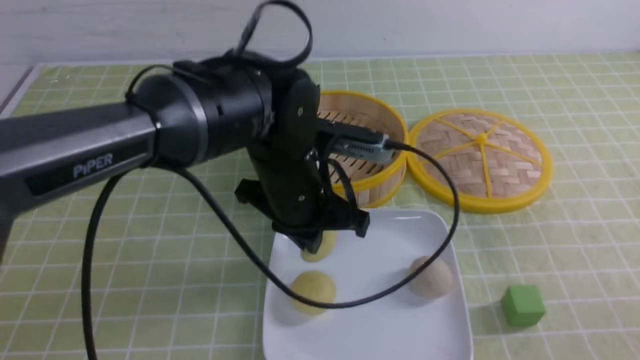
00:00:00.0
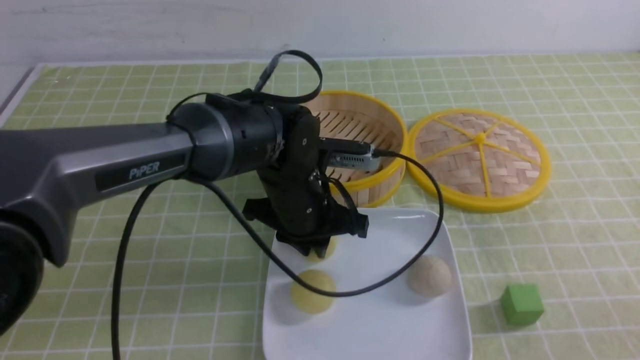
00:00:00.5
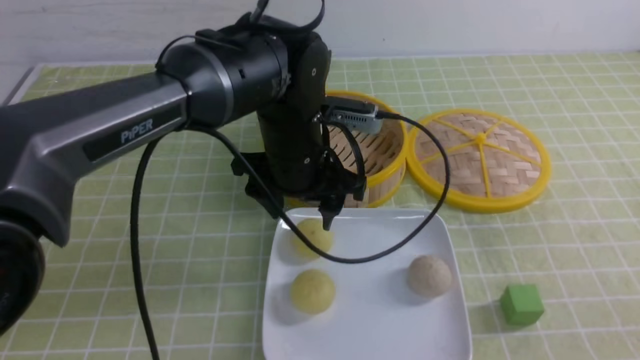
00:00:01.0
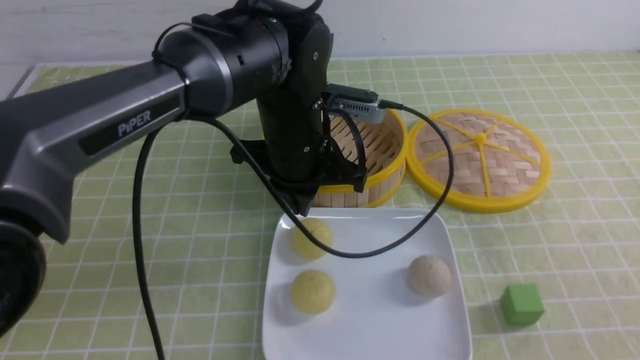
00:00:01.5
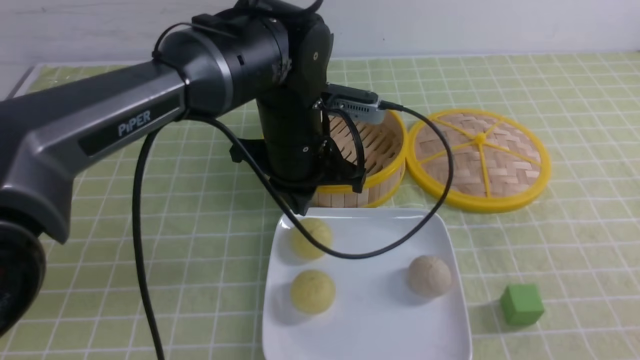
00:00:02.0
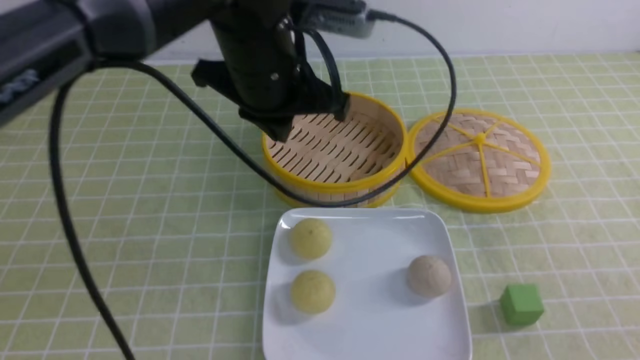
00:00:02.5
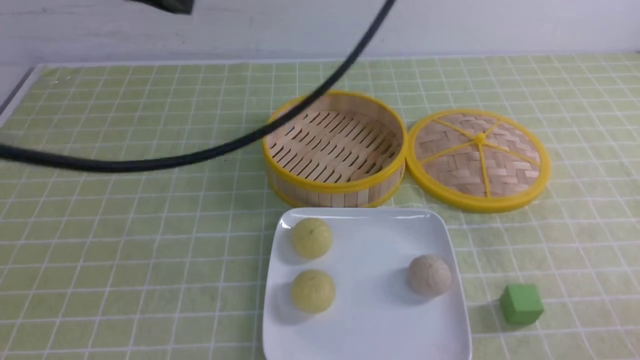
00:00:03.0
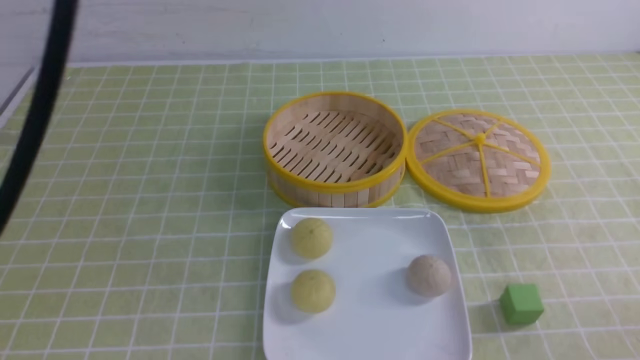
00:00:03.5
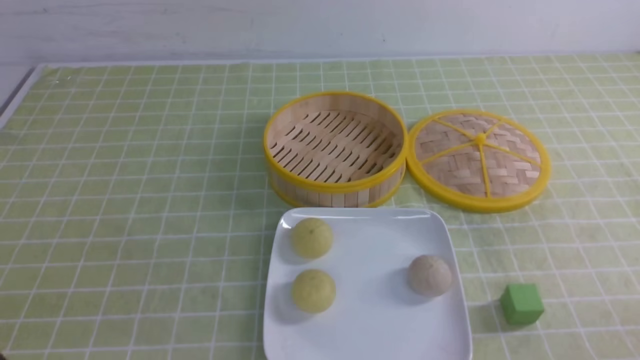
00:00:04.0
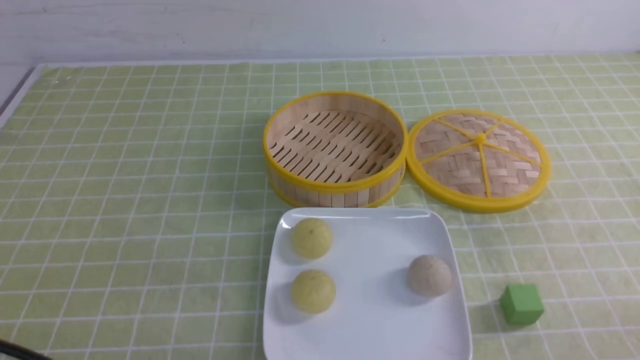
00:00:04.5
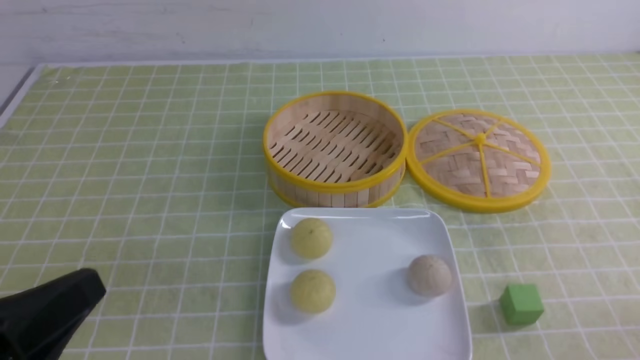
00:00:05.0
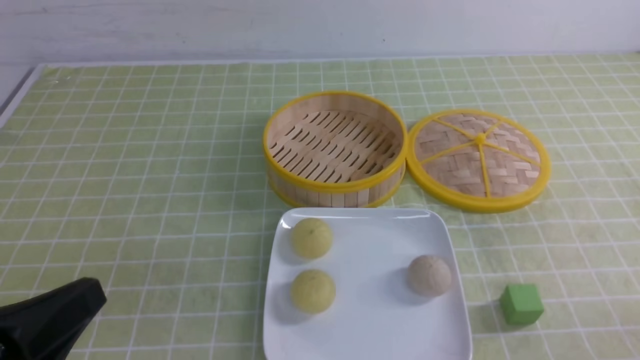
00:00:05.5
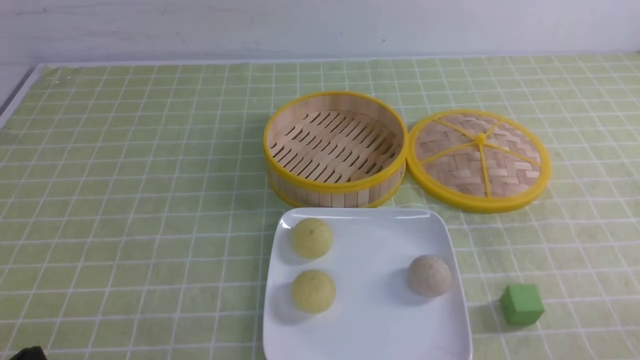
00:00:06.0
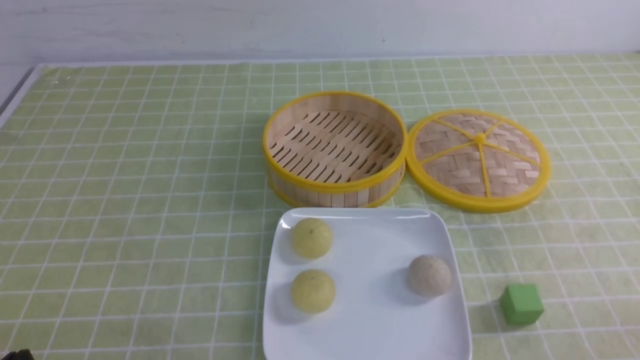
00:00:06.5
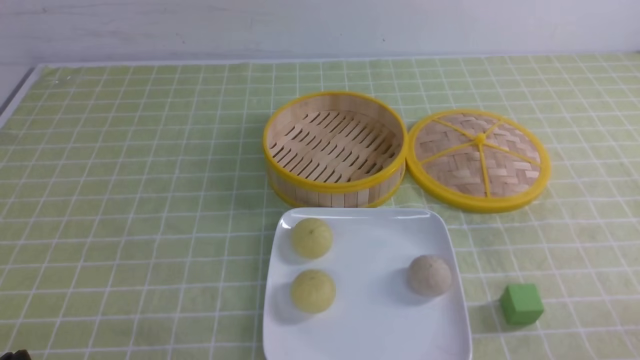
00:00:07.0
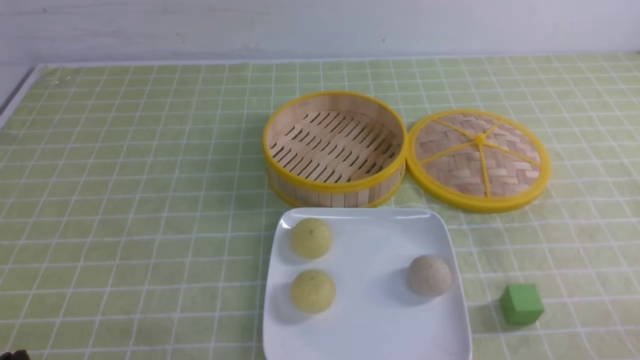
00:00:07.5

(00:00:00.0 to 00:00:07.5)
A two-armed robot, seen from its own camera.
00:00:00.0 - 00:00:02.0: The left gripper opens, then closes again. The right gripper closes.
00:00:02.0 - 00:00:04.0: The left gripper heads backward and to the left, covering approximately 40 cm; the right gripper heads downward, covering roughly 10 cm.
00:00:04.0 - 00:00:05.5: The left gripper shifts about 10 cm downward.
00:00:05.5 - 00:00:07.5: The left gripper goes some 10 cm downward.
